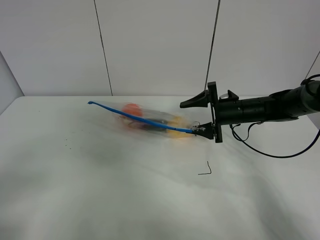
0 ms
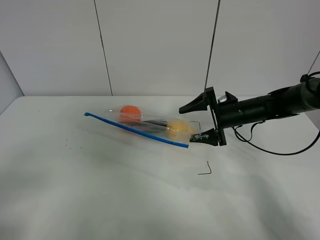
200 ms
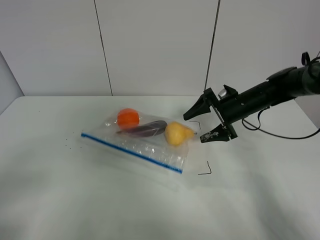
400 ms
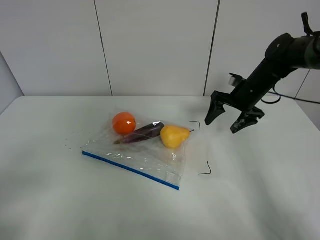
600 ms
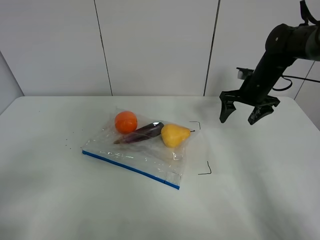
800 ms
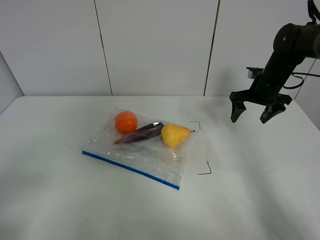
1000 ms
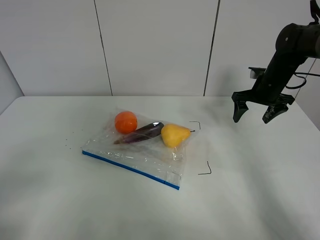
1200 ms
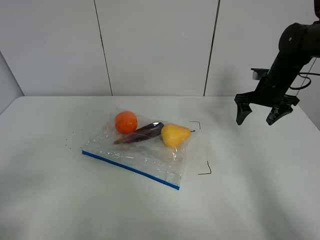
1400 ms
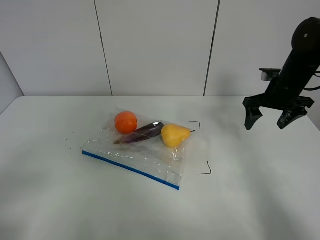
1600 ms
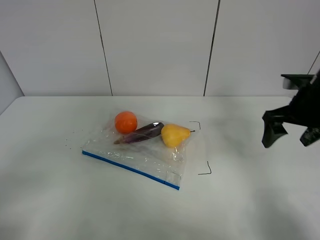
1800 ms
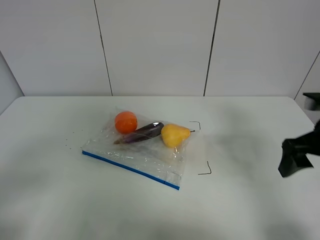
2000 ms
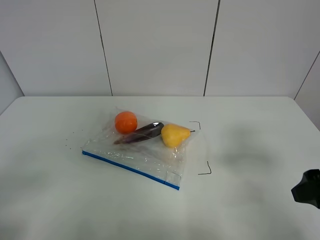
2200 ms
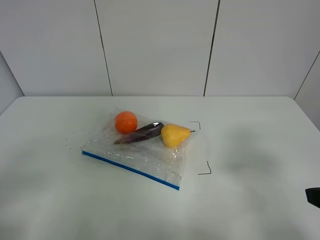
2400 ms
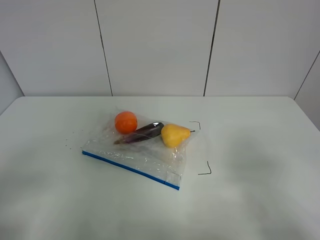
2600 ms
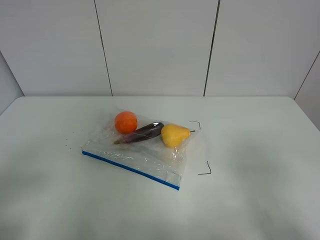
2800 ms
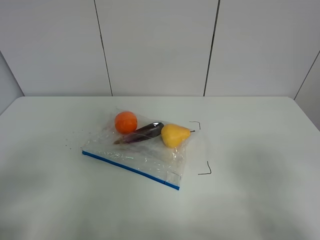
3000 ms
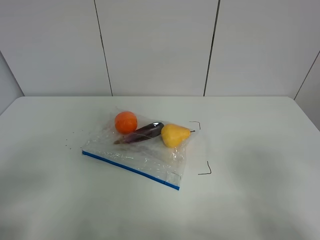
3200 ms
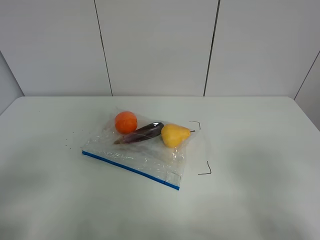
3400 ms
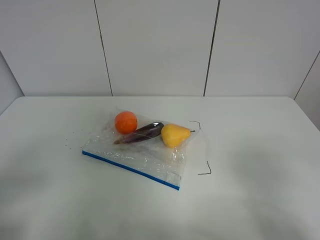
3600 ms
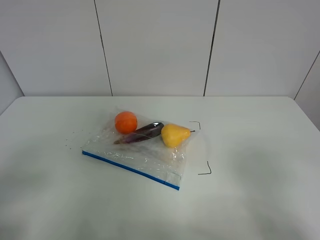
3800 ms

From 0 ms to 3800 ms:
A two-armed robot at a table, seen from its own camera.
From 0 ms to 1200 ms: The right gripper is displaced to the right, upward and forward by about 10 cm.
From 1200 ms to 2600 ms: The right gripper travels backward by roughly 40 cm.

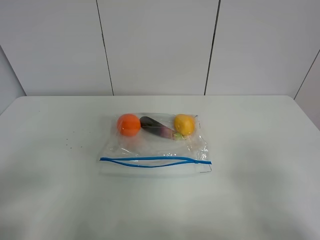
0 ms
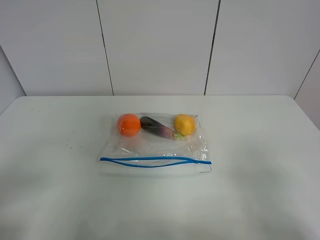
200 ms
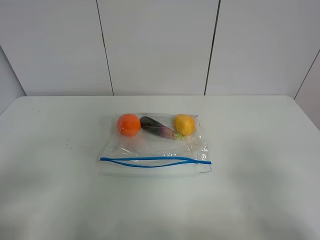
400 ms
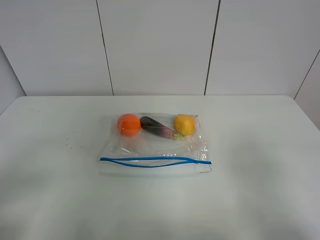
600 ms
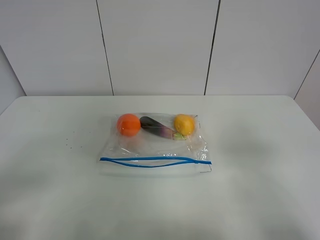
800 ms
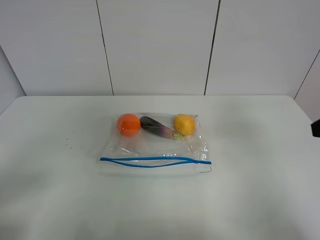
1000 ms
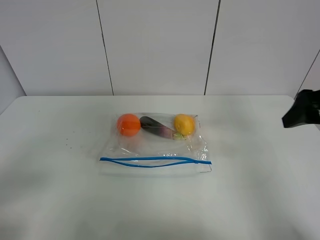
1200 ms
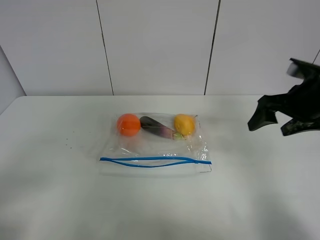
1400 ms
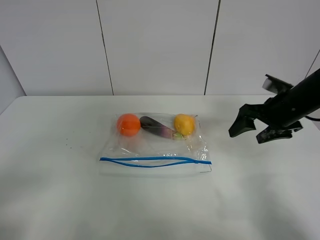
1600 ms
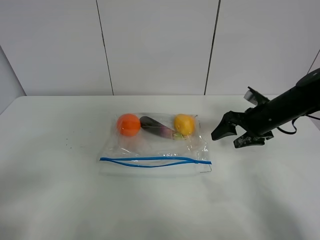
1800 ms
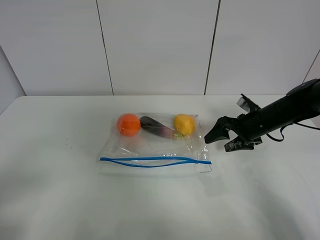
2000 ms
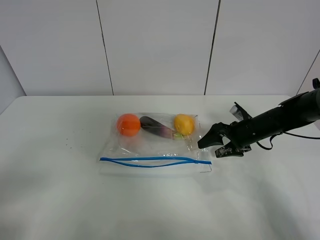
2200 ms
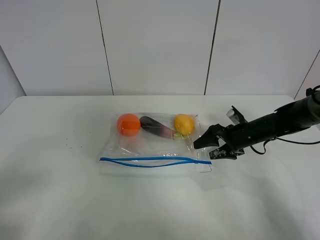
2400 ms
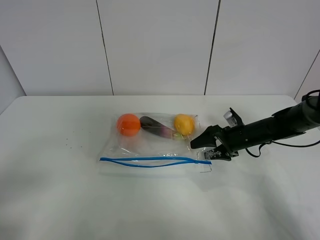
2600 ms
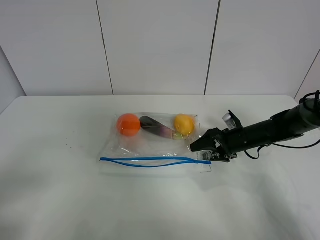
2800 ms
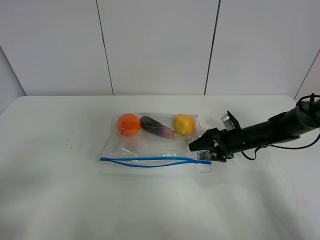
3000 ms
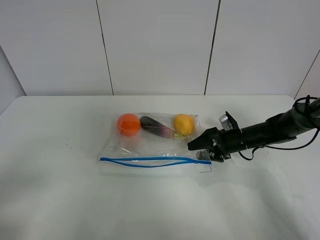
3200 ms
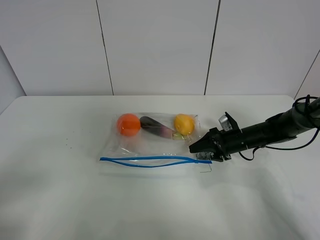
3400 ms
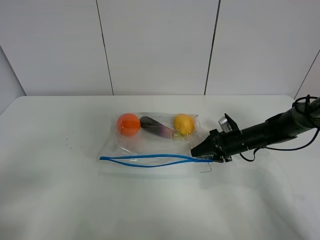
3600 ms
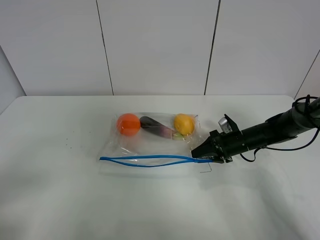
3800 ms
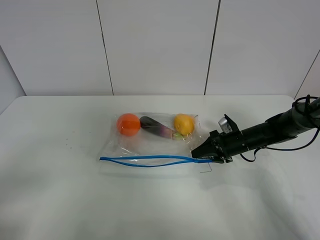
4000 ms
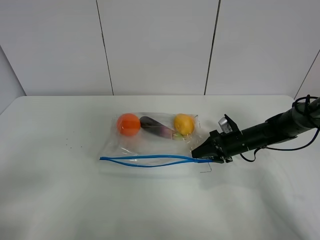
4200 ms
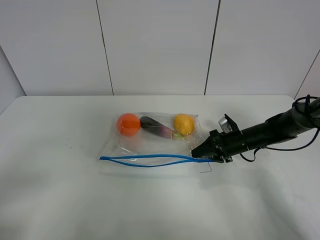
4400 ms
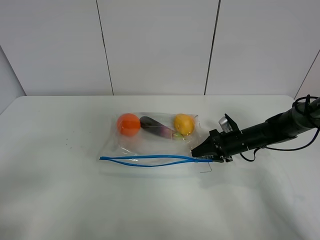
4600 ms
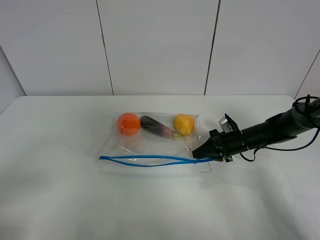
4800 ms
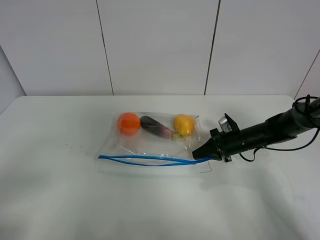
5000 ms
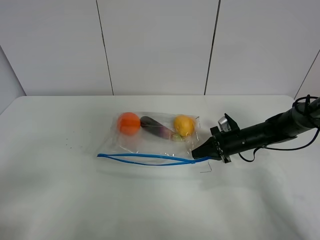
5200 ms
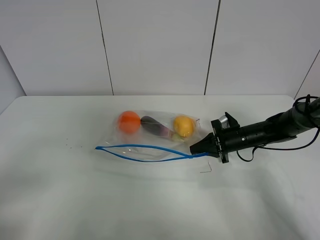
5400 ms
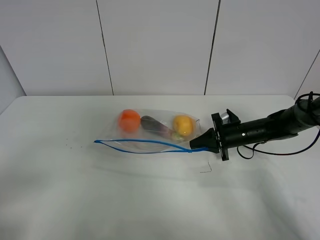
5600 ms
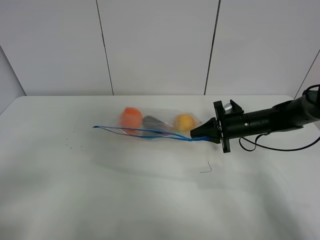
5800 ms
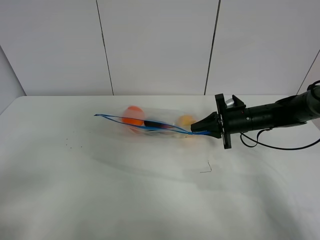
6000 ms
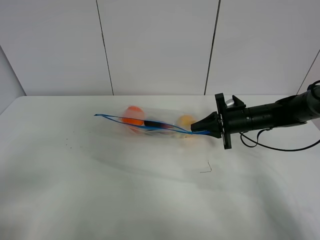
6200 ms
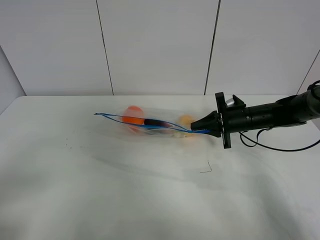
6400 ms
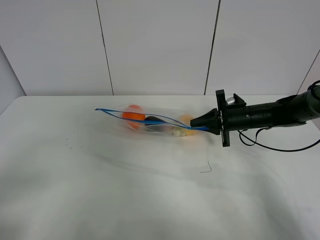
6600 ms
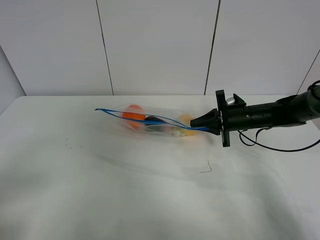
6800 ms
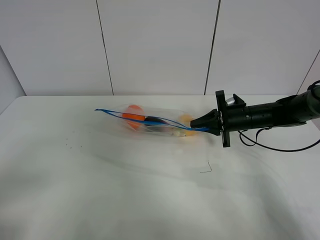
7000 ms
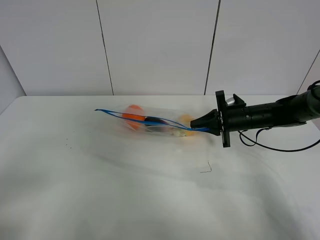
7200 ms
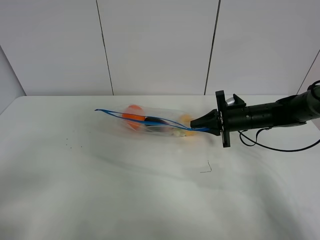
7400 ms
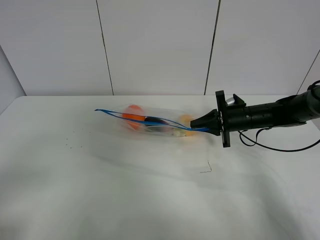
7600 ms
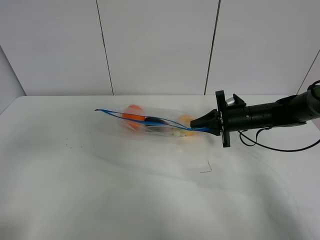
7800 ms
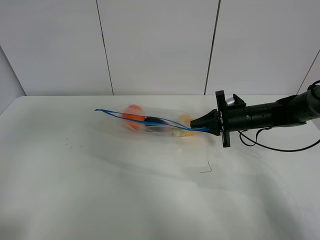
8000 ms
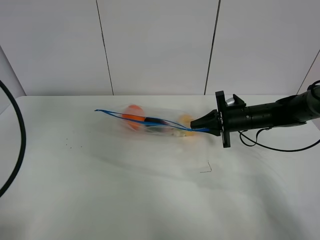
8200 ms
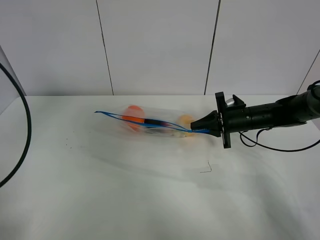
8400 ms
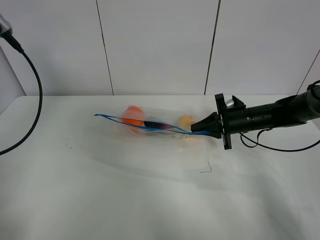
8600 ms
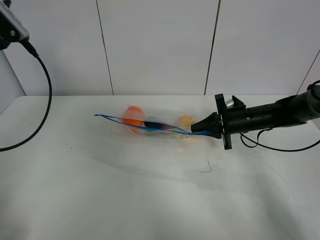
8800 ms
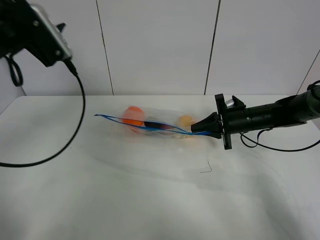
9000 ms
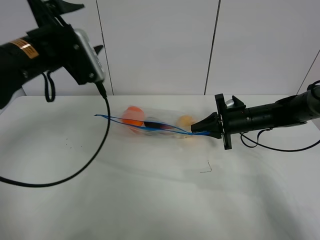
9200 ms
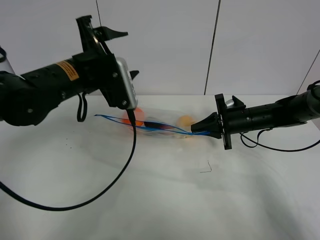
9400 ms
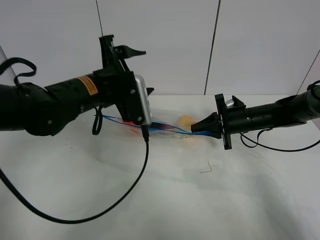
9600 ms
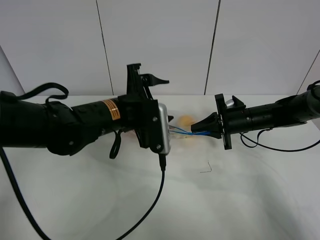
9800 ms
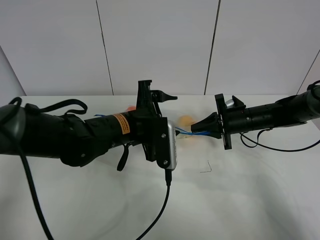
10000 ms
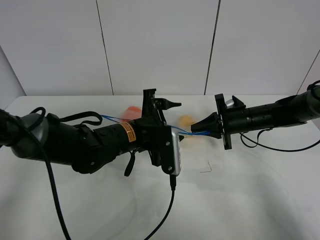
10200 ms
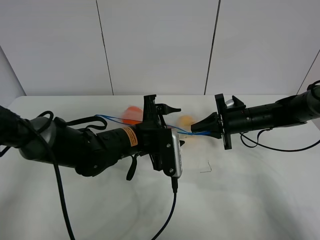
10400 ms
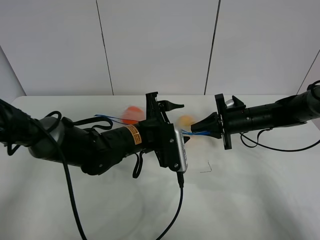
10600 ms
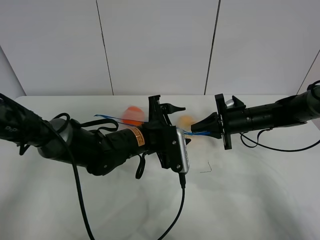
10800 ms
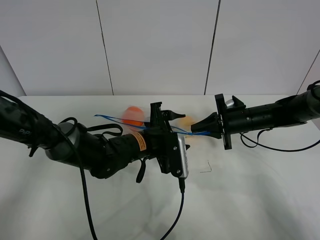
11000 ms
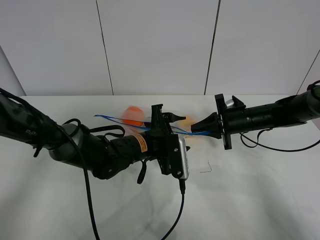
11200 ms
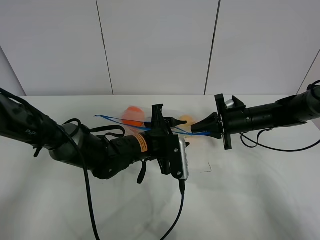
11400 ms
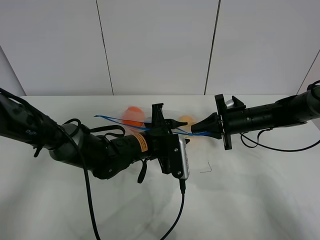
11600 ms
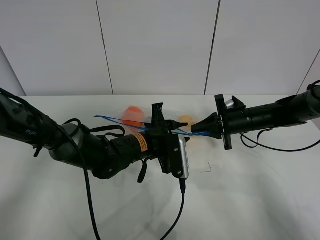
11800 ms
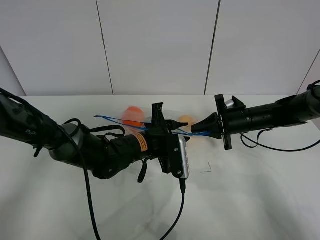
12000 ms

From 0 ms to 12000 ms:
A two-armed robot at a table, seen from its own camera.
Step, from 0 ms to 4800 ms: Grasp the fruit bag with right gripper.
Step, from 5000 ms to 6200 ms: Lift the fruit bag with your right gripper.
From 0 ms to 1600 ms: The right gripper is displaced forward by approximately 30 cm.
From 1600 ms to 3000 ms: The right gripper is displaced downward by some 15 cm.
From 3000 ms to 4400 ms: The right gripper closes.
From 4400 ms to 6000 ms: The right gripper heads upward, covering about 5 cm, and closes its fingers.
From 6000 ms to 7600 ms: There are only small adjustments of the grippers.
From 7600 ms to 9000 ms: The left gripper is displaced forward by approximately 30 cm.
From 9000 ms to 10400 ms: The left gripper goes approximately 25 cm to the right and downward.
From 10400 ms to 12000 ms: The left gripper closes up.

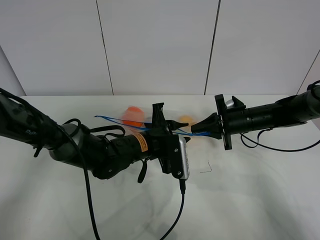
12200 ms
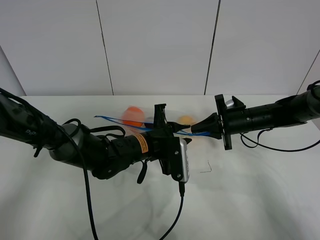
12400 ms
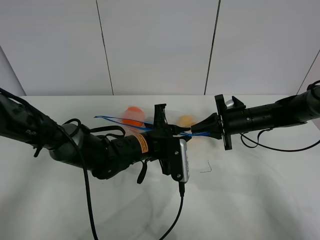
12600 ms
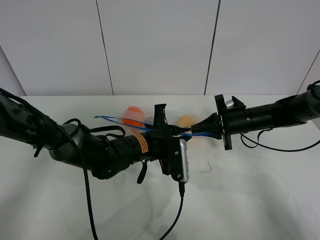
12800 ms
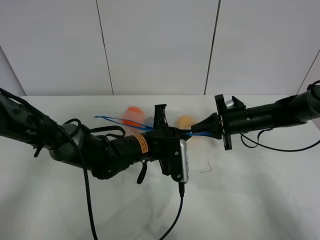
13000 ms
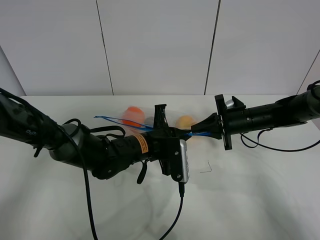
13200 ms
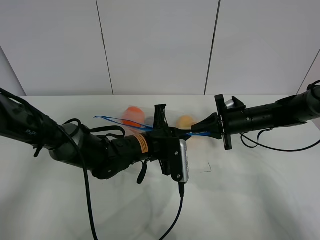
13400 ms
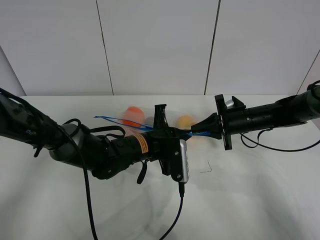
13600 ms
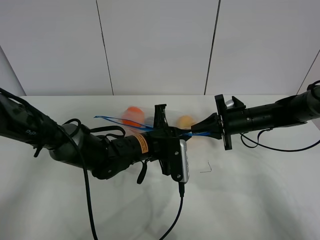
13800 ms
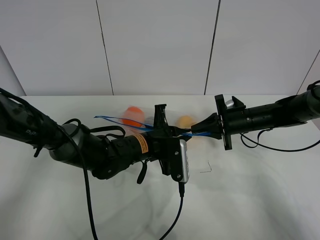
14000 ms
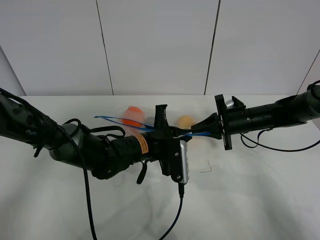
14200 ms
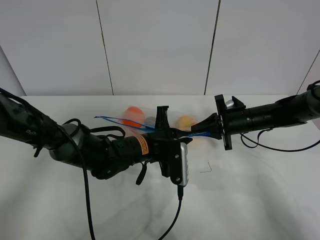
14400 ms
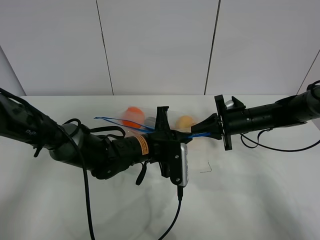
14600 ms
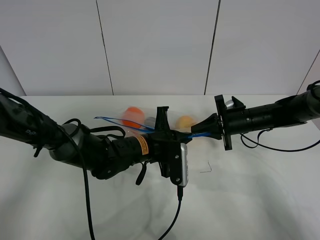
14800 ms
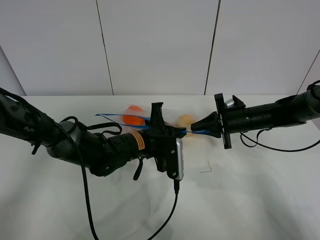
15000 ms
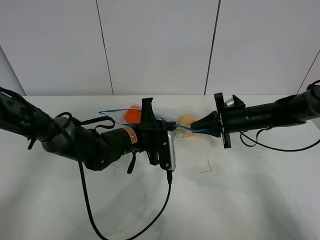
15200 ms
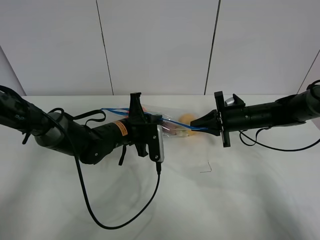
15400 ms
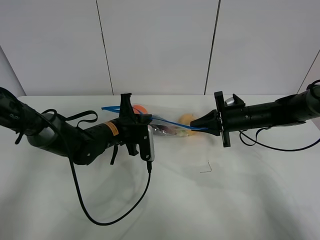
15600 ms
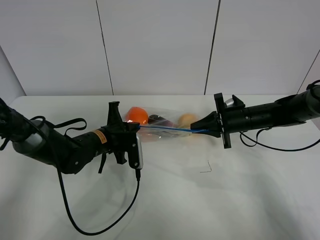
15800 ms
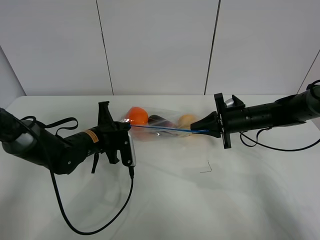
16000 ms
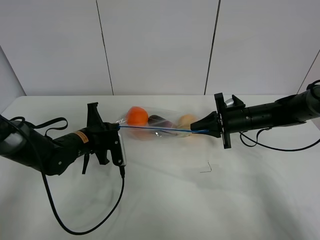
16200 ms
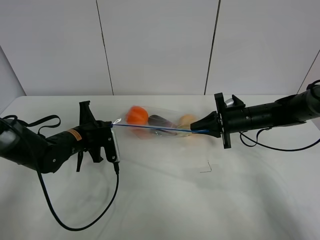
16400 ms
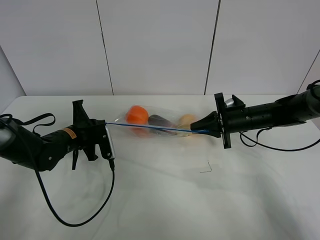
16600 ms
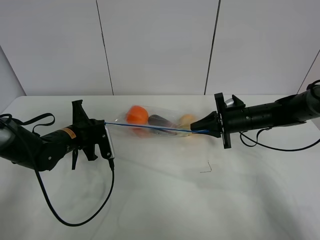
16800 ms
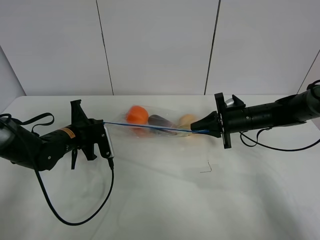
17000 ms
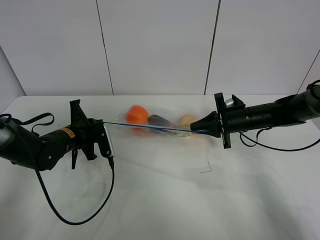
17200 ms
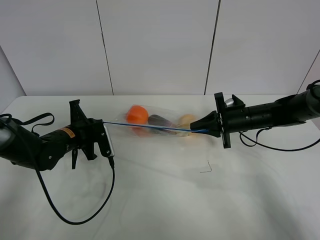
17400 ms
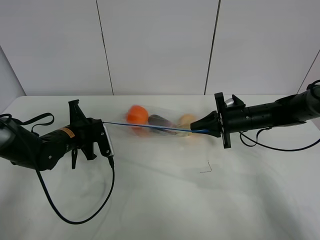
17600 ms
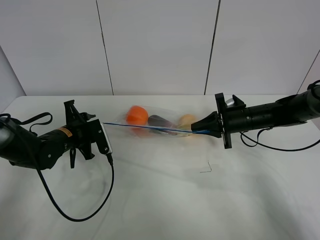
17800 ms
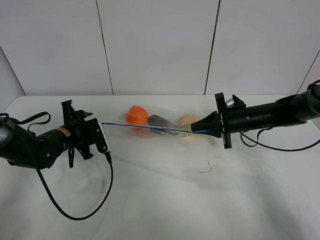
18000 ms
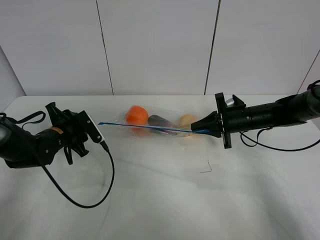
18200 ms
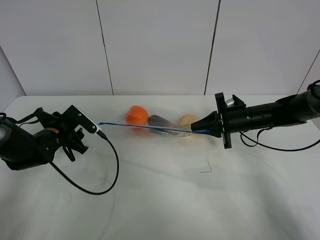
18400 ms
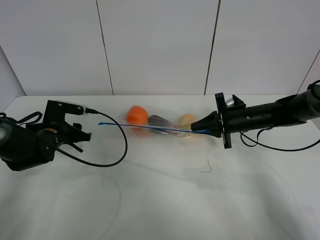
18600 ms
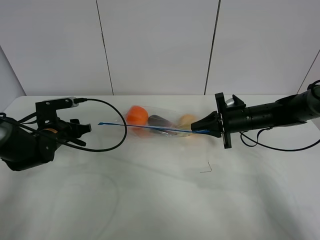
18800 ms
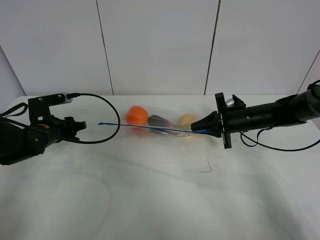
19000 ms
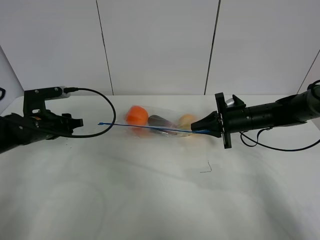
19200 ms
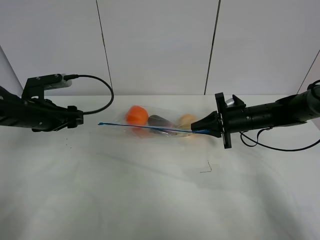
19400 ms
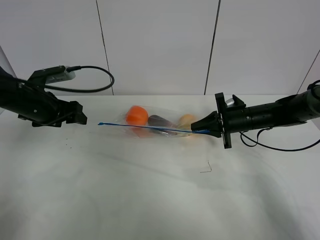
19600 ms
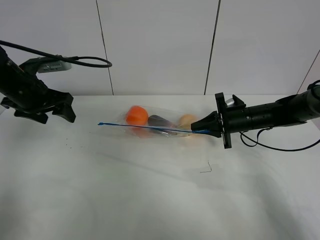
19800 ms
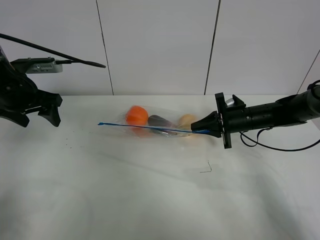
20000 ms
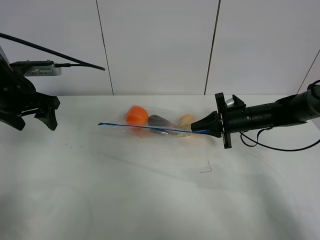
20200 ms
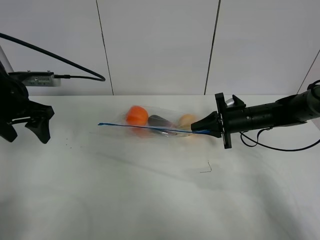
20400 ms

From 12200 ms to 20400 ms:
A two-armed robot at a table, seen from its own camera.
Step, from 12200 ms to 17800 ms: Pull the fruit bag with left gripper.
From 12200 ms to 13800 ms: The left gripper closes its fingers.
From 13800 ms to 15400 ms: The left gripper shifts approximately 10 cm to the left and forward.
From 15400 ms to 17200 ms: The left gripper goes approximately 10 cm to the left.
From 17200 ms to 18800 ms: The left gripper opens up.
From 18800 ms to 20400 ms: The left gripper heads upward, covering roughly 15 cm.
